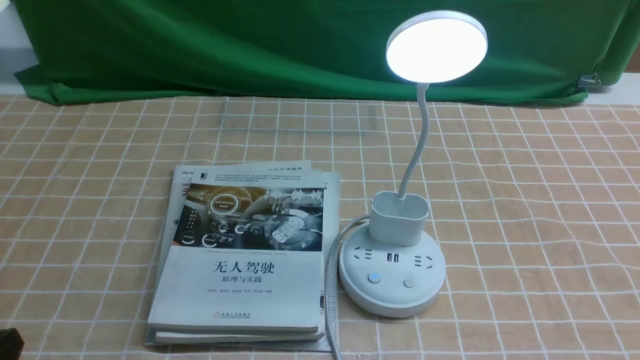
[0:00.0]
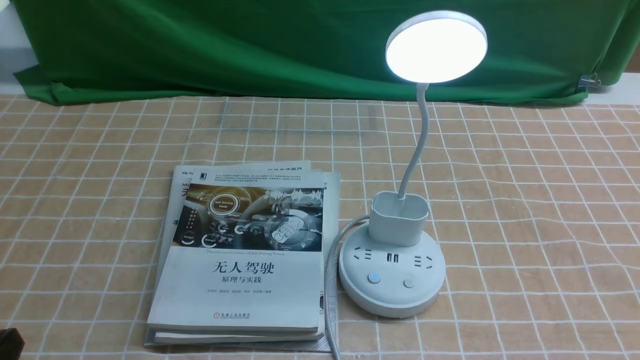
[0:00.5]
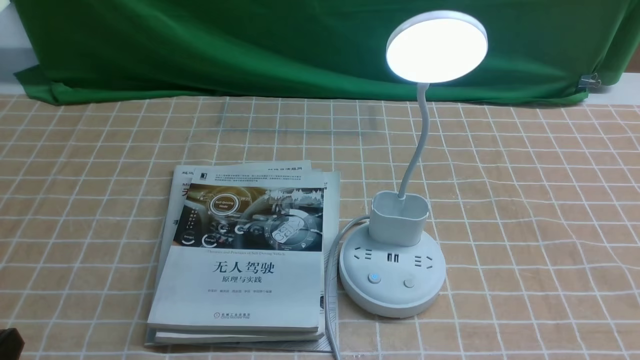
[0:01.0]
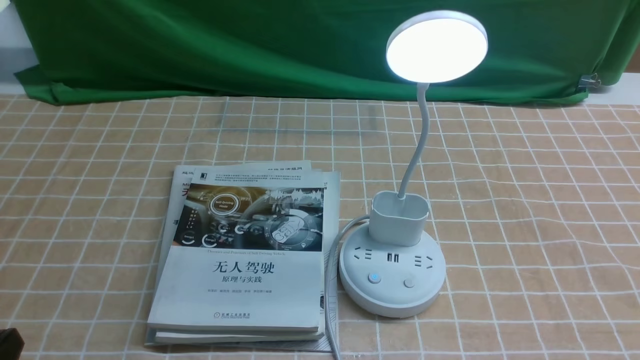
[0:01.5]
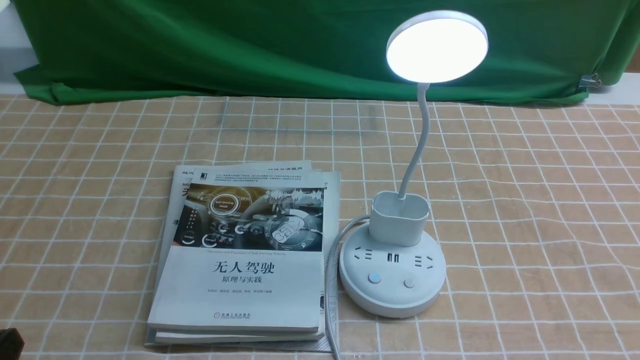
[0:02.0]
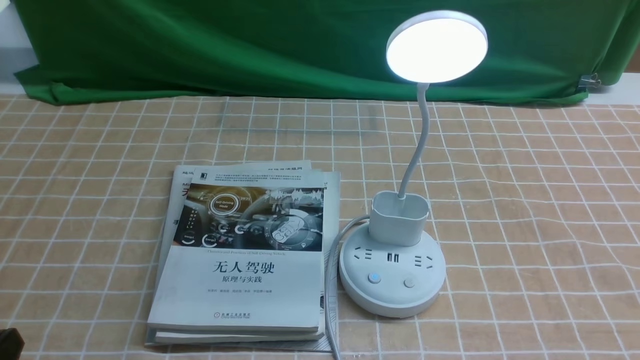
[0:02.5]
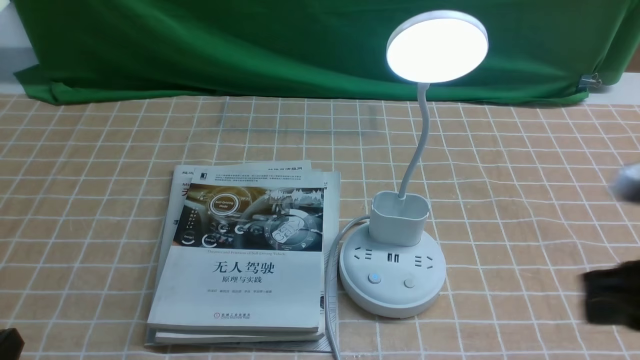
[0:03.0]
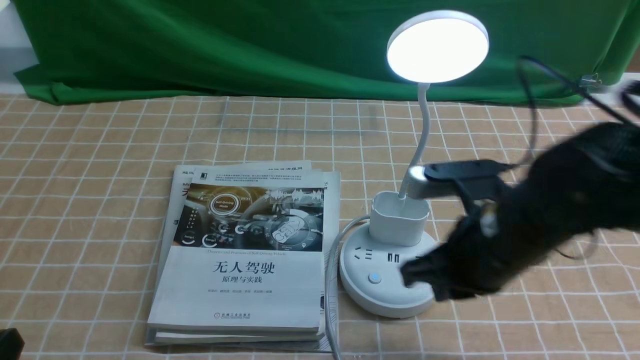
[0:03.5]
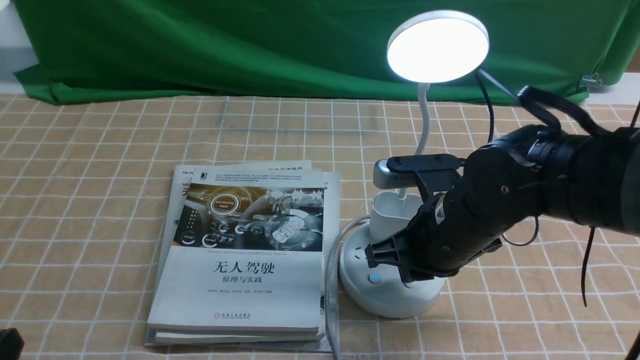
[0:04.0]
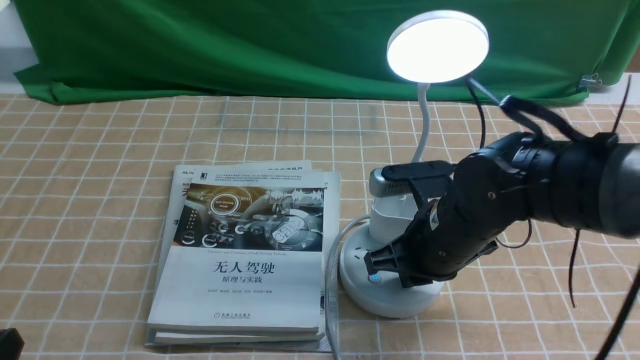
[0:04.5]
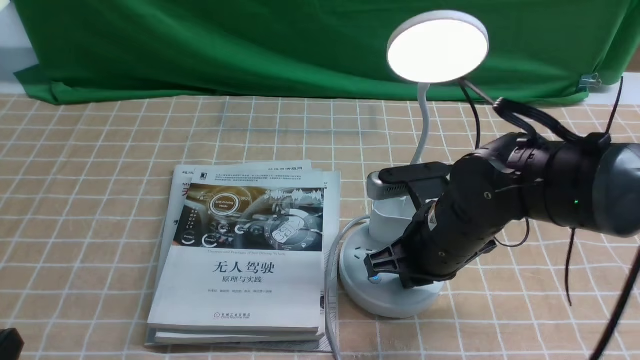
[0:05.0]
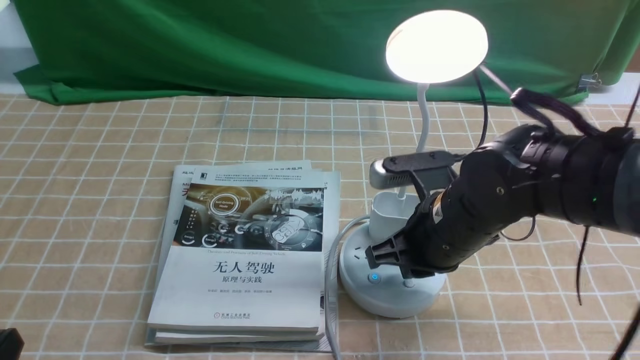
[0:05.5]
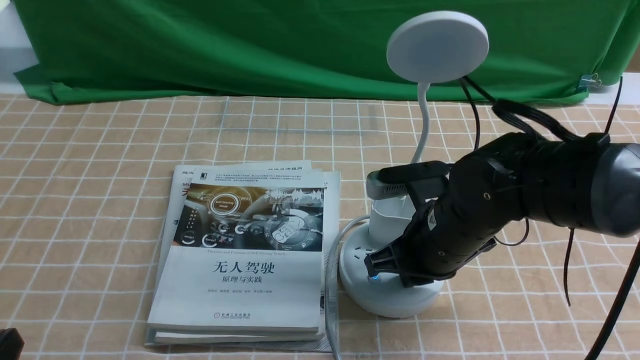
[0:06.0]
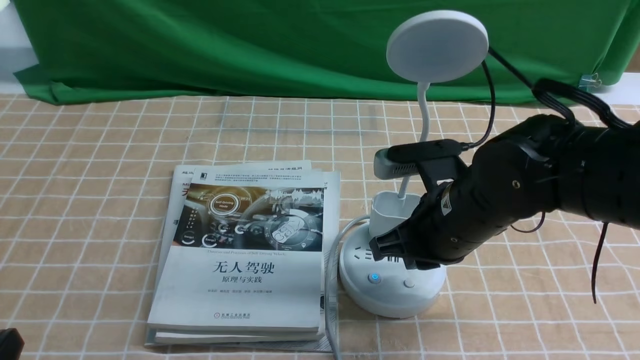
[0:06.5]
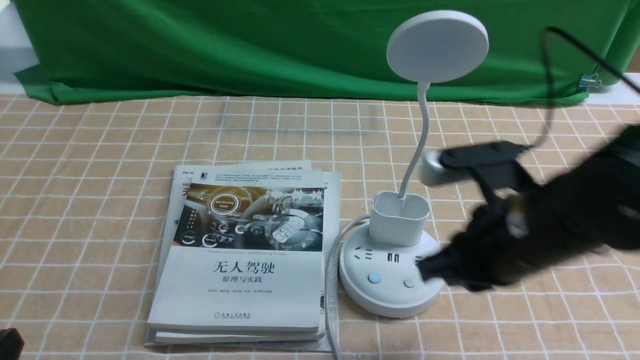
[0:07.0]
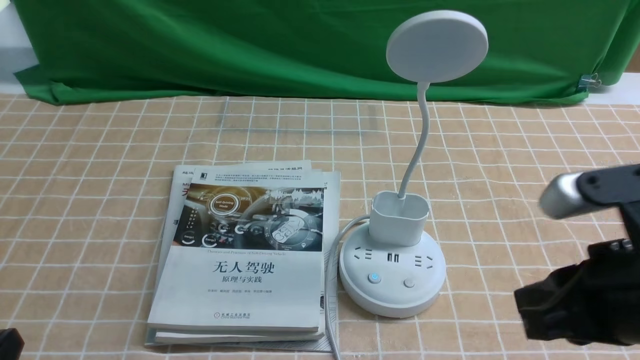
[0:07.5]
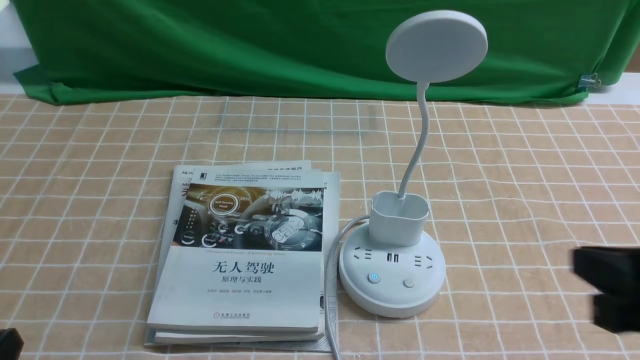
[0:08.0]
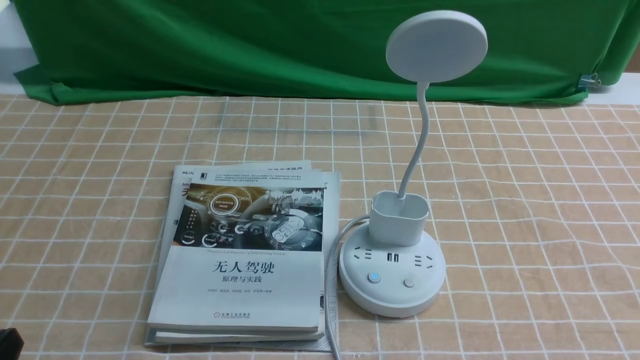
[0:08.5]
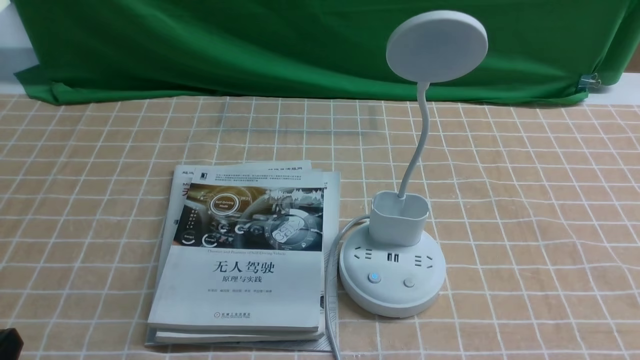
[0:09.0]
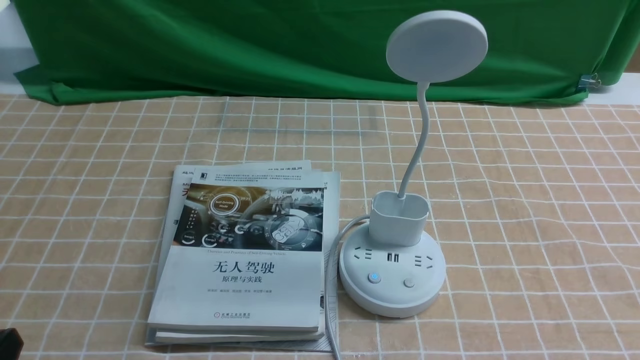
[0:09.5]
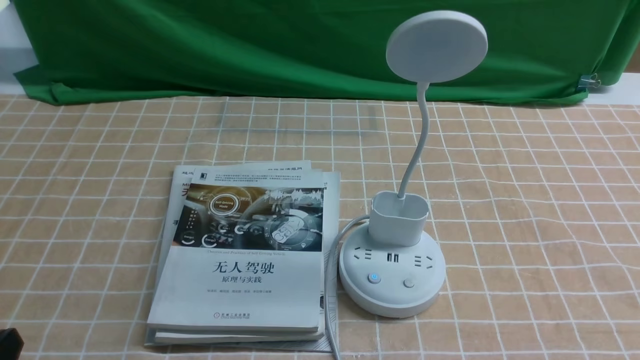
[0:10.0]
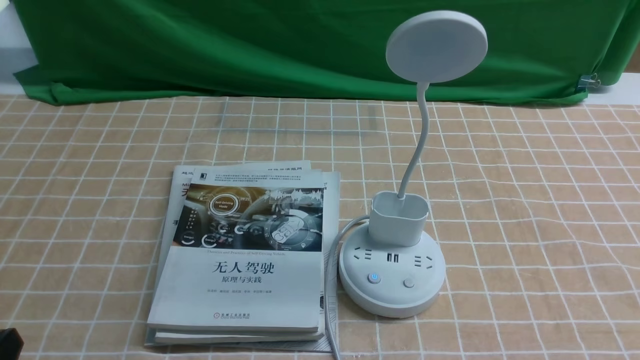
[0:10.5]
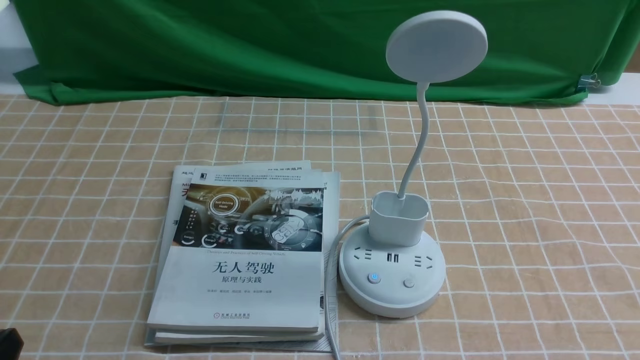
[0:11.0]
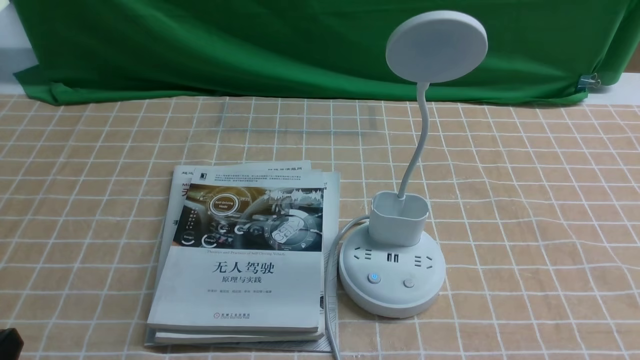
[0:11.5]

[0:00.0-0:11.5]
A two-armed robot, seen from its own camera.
Task of the whole recording: turn off the desk lamp on the light coffee tablecloth by hand.
Step, 0:00.0 to 0:06.0: use the right arm to press the button switch on the lamp holder.
0:02.0 to 0:04.0: The right gripper goes approximately 30 cm forward and to the left, and closes up.
0:04.0 to 0:06.0: There are only small adjustments of the grippers.
0:06.0 to 0:07.5: The right gripper moves backward, upward and to the right, approximately 20 cm.
0:07.5 to 0:09.5: The right gripper goes approximately 15 cm to the right, backward and downward.

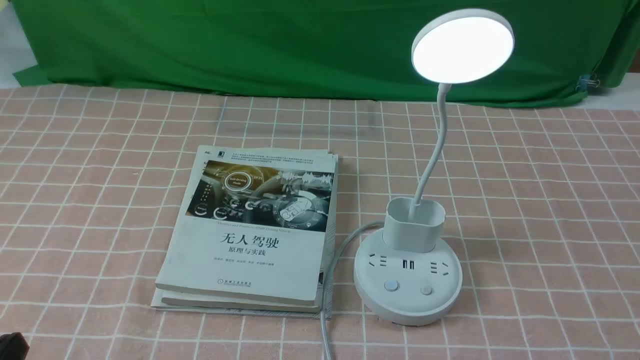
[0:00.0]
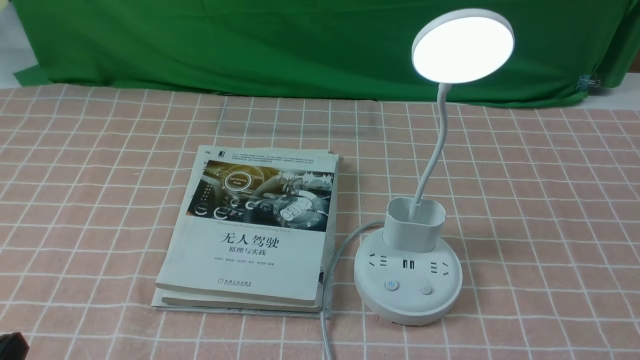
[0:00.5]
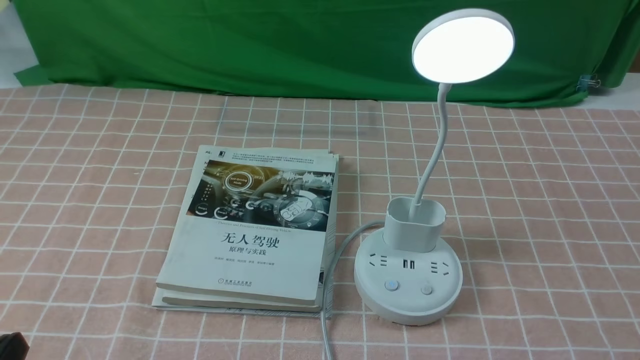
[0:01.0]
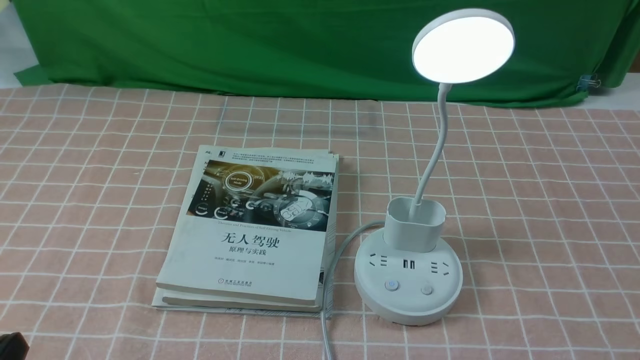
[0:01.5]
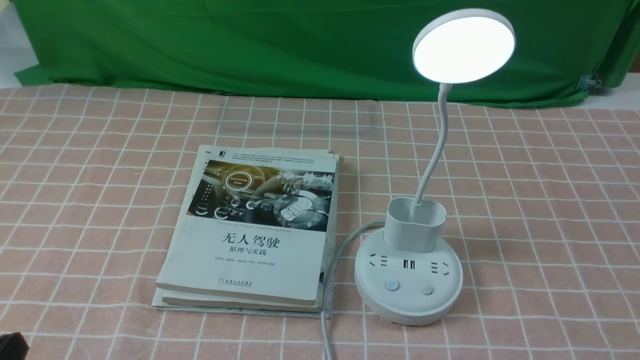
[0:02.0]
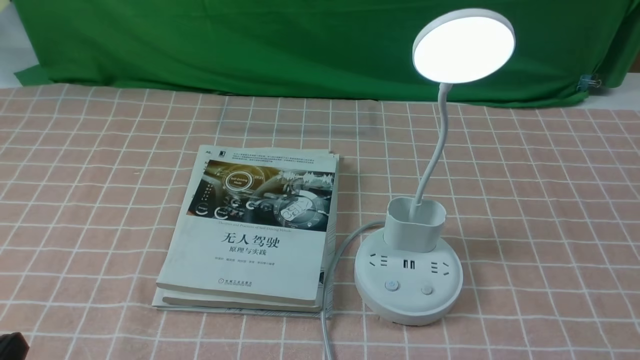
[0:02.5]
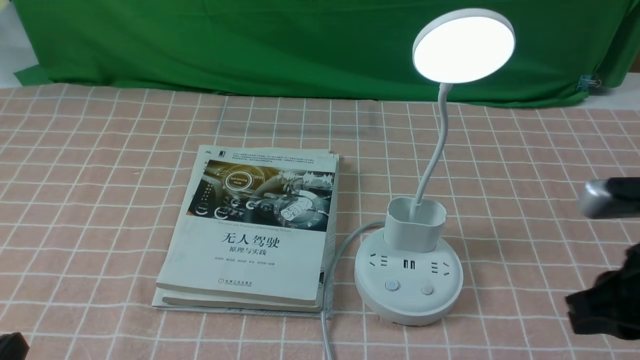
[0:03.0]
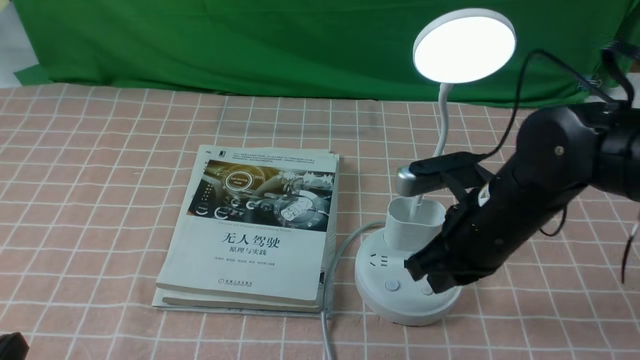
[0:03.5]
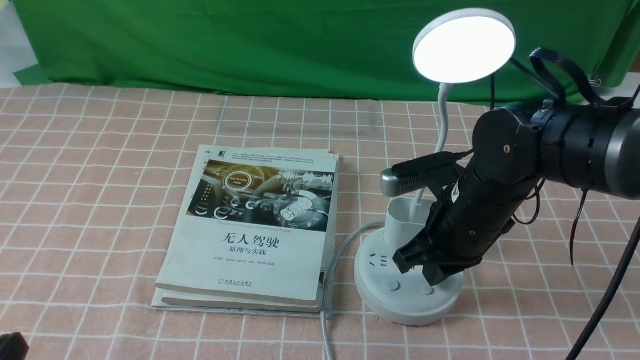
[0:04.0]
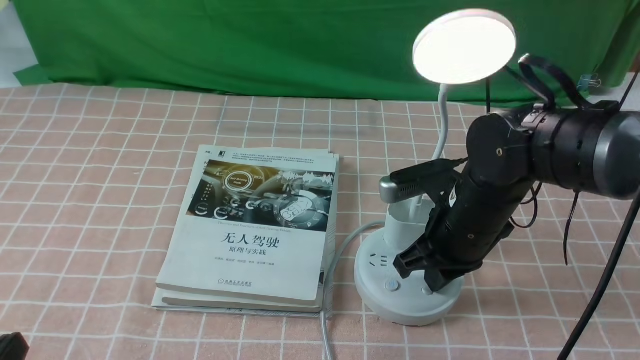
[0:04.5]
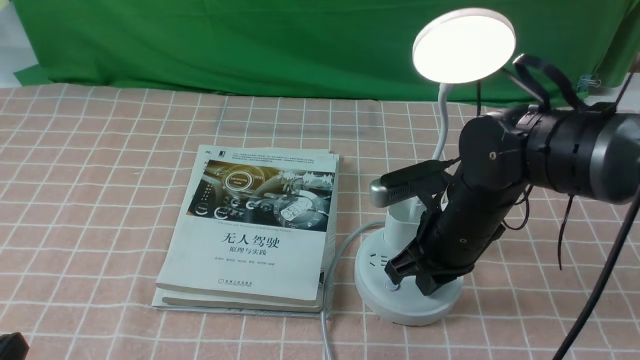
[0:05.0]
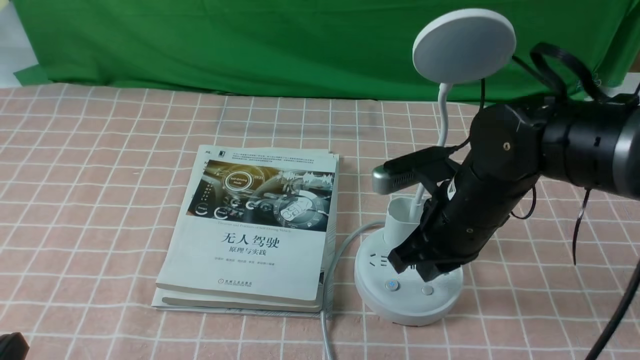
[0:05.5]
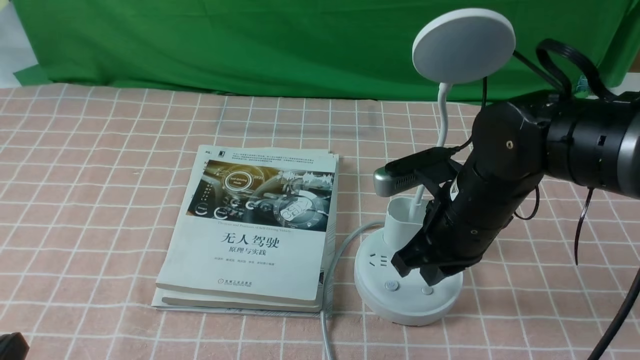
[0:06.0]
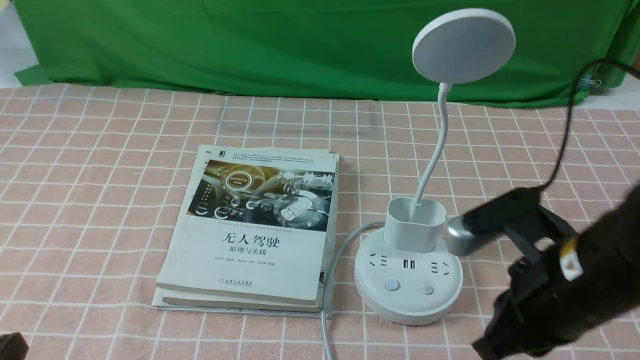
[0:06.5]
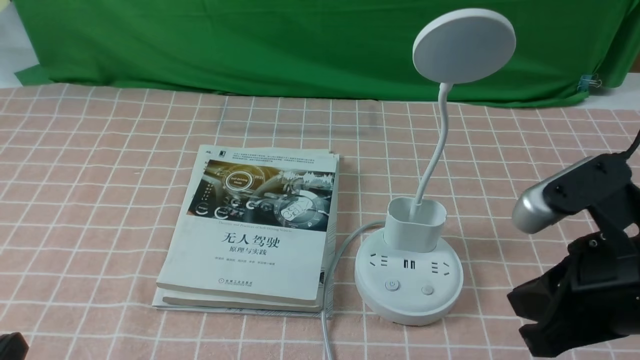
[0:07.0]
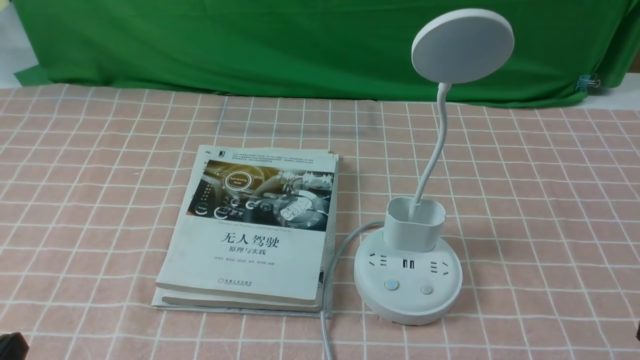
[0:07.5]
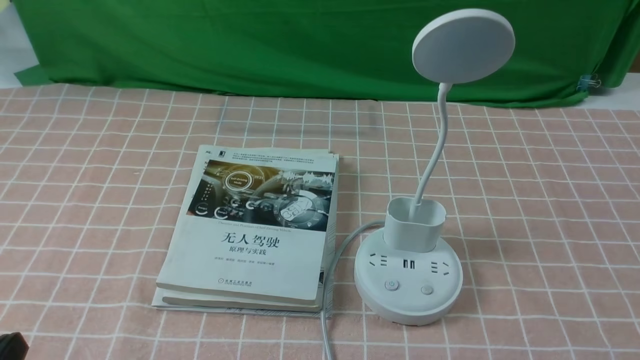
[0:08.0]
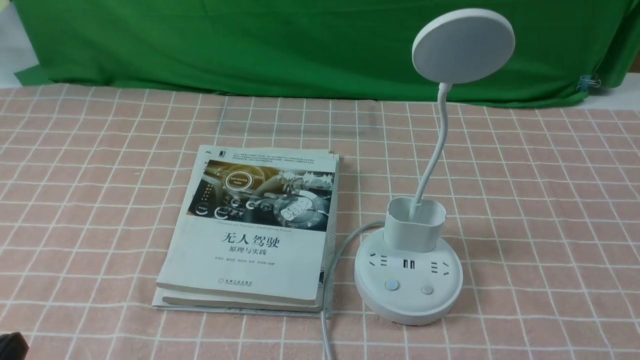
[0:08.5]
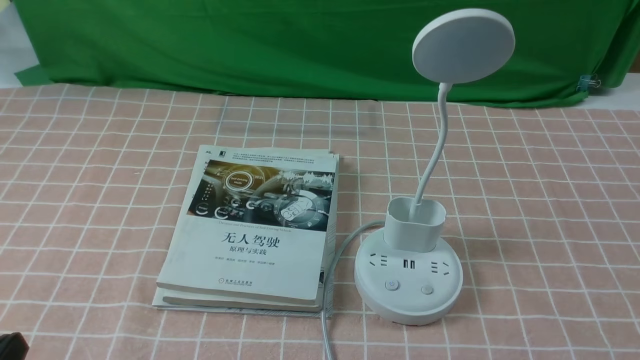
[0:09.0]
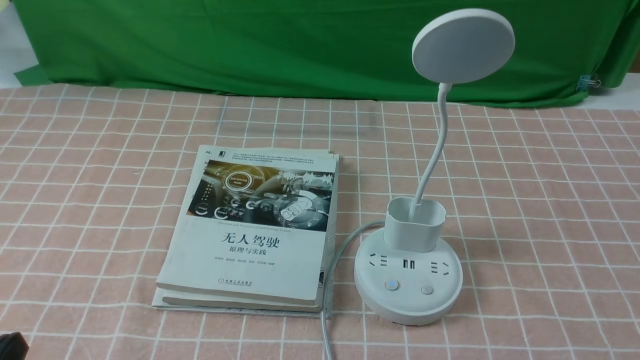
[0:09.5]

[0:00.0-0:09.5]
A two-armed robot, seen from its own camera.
Task of the whole recording: turn off the table lamp on the pink coffee tablecloth by hand.
Step, 0:00.0 to 0:05.5: use the right arm to press the button switch on the lamp holder.
0:02.0 to 0:04.0: The right gripper goes about 30 cm forward and to the left, and closes up.
0:04.0 to 0:05.5: There are only small adjustments of the grippers.
0:05.5 to 0:07.5: The right gripper goes some 30 cm backward and to the right.
